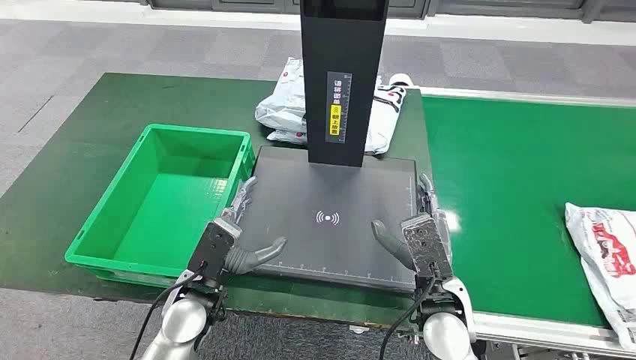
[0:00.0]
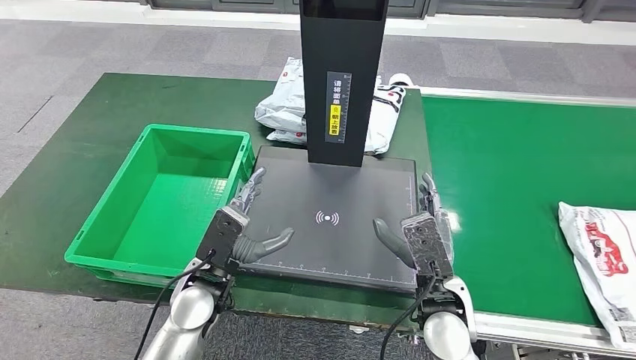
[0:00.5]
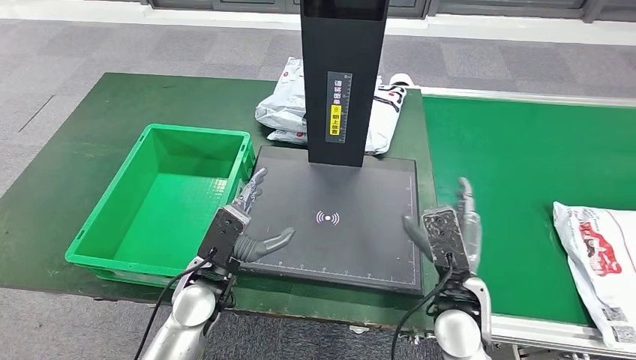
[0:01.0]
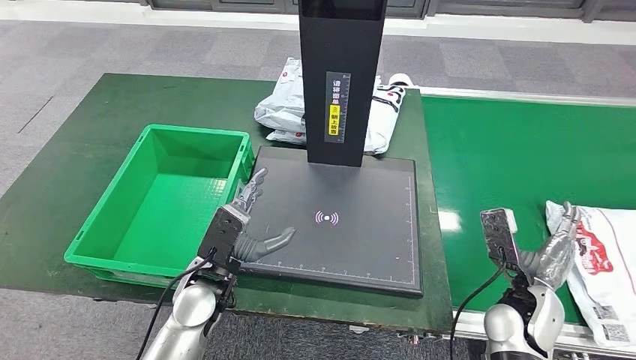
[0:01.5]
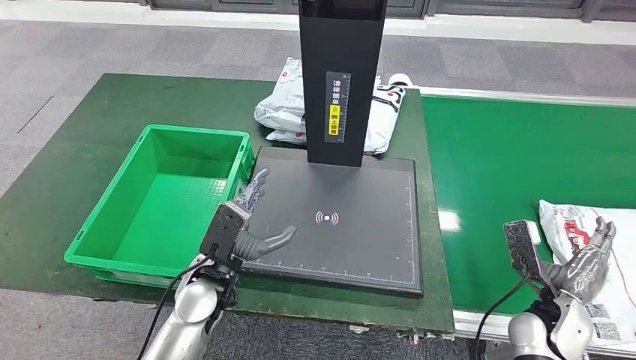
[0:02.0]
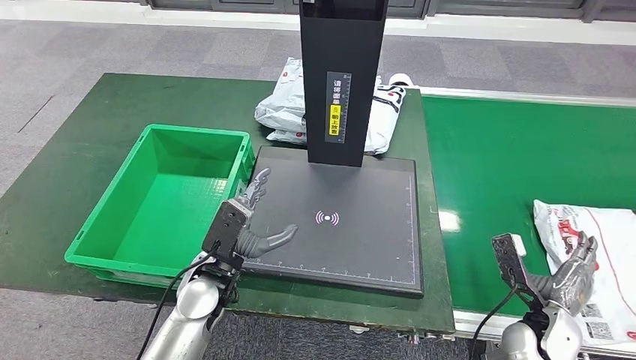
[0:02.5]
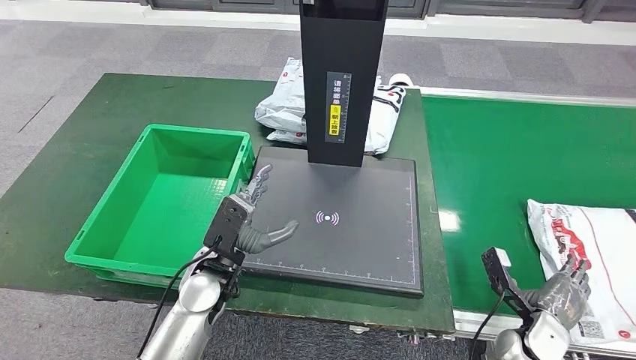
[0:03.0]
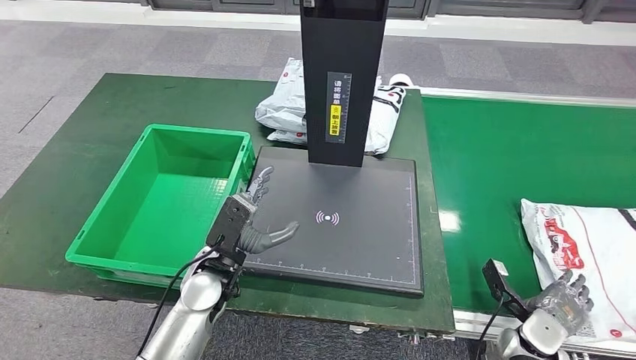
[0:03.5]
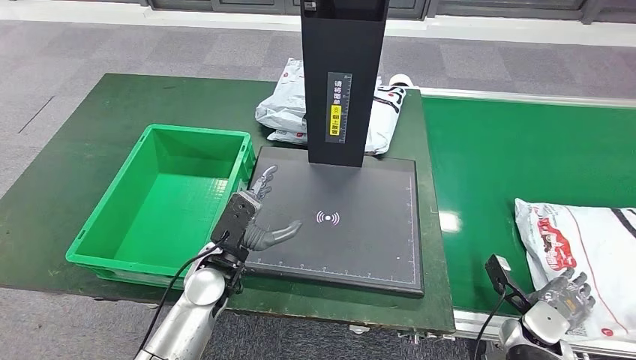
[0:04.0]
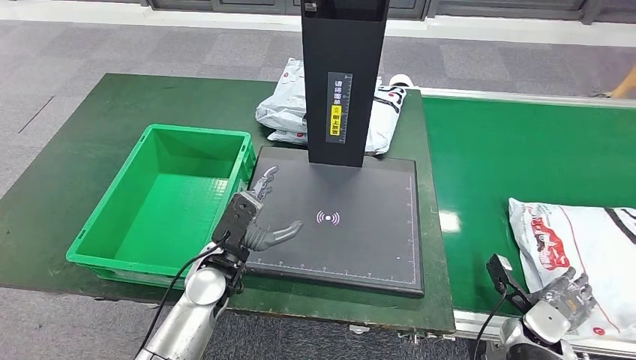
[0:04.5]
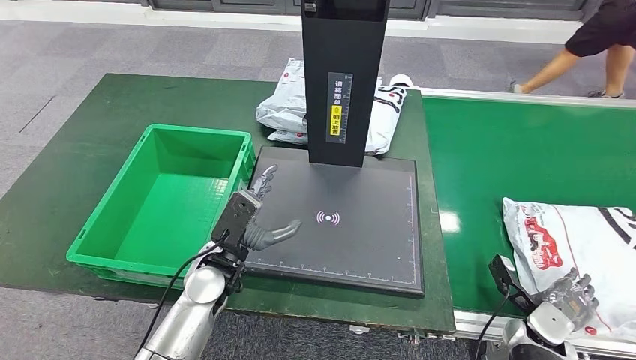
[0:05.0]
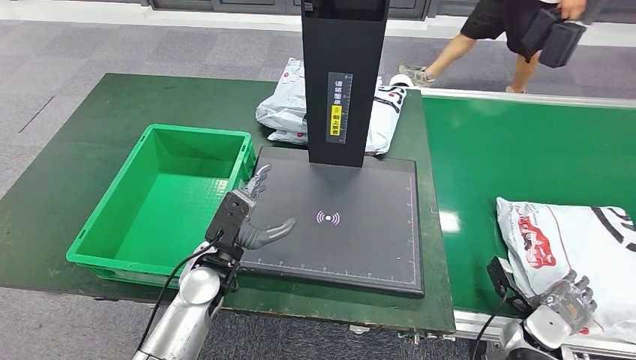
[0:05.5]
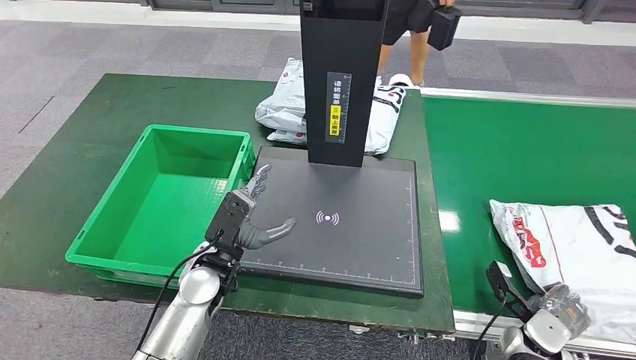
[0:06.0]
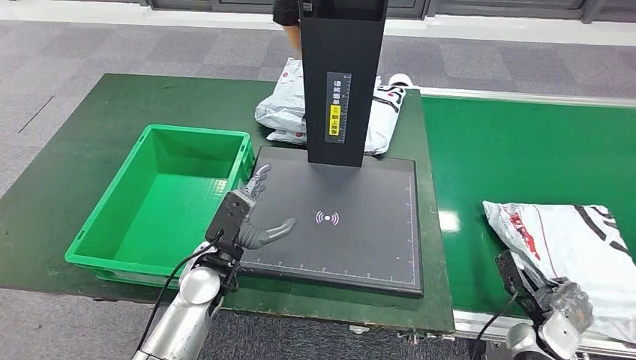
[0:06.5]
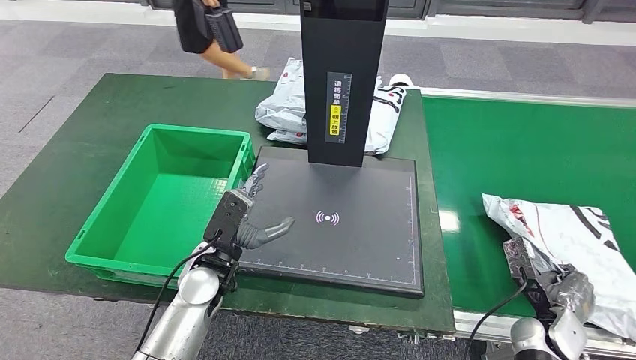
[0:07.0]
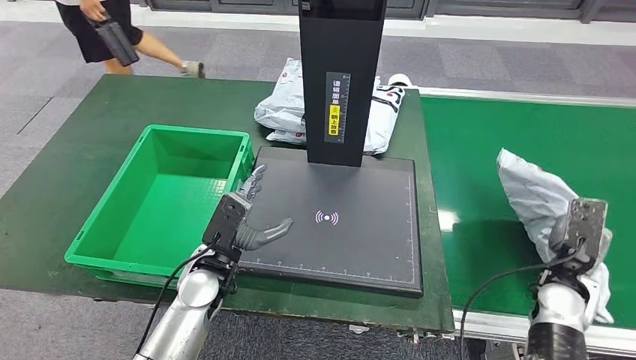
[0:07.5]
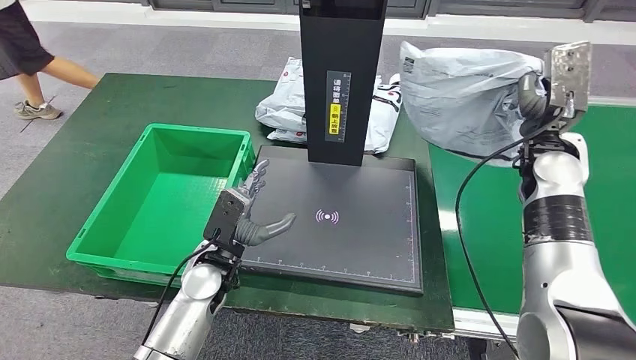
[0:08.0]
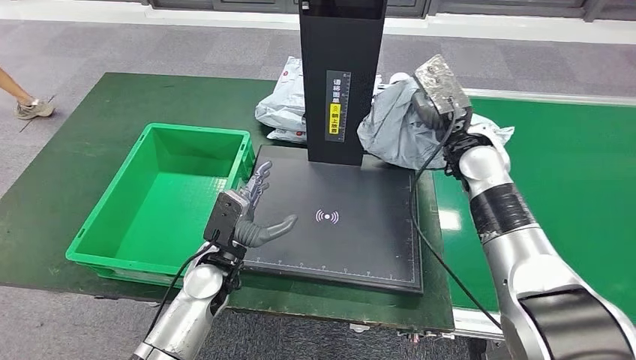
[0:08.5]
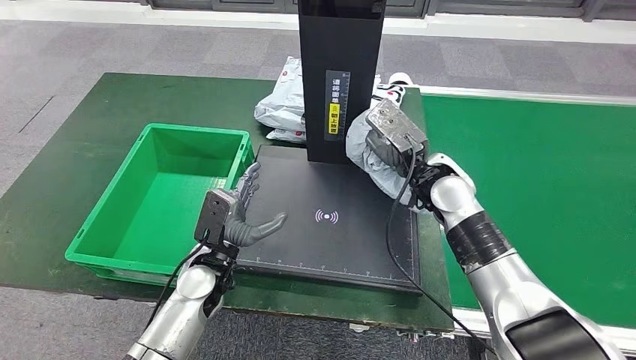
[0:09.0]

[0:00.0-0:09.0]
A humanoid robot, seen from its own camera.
Step, 0:00.0 to 0:08.0: Take the parcel off the conveyor belt.
0:02.0 to 0:04.5: The right hand goes roughly 5 cm downward.

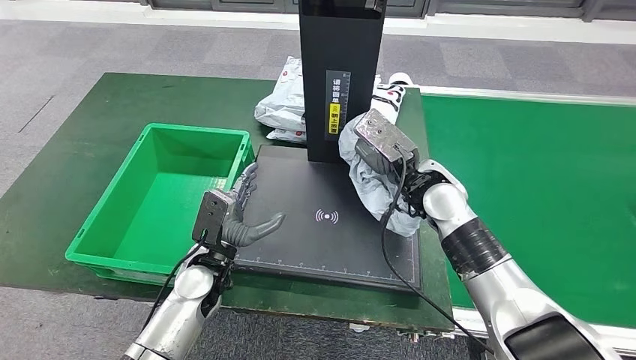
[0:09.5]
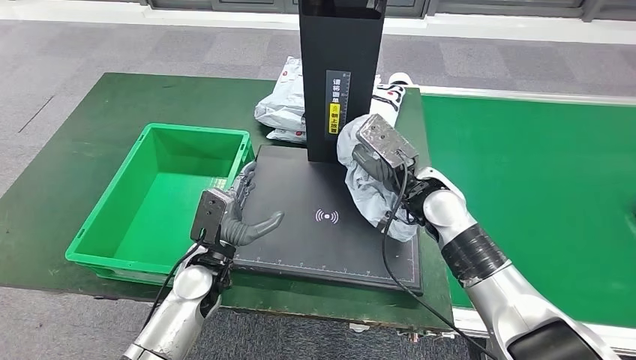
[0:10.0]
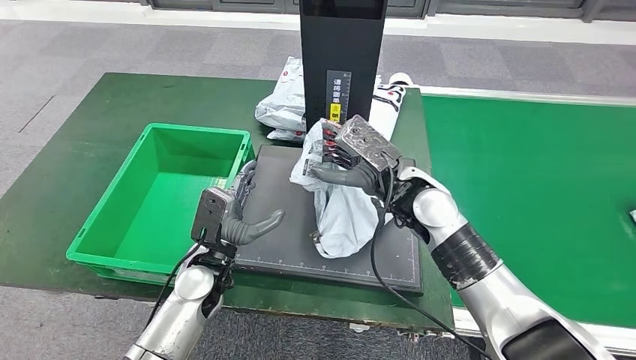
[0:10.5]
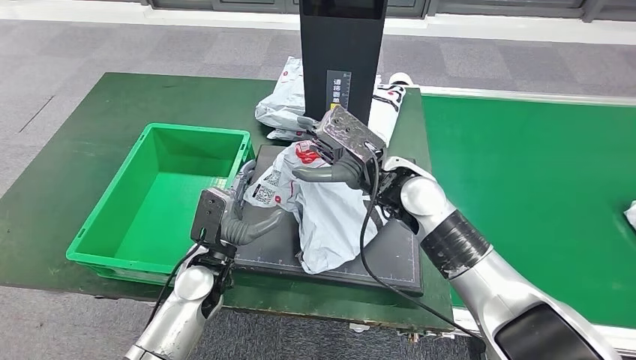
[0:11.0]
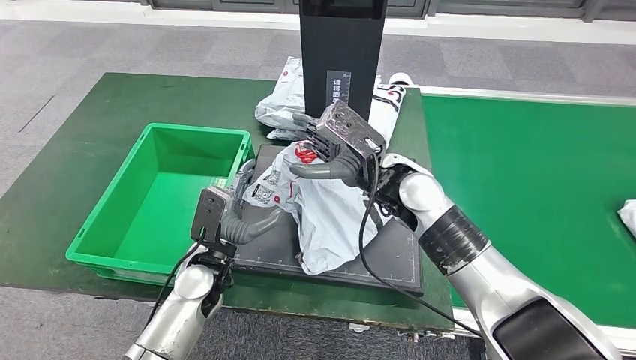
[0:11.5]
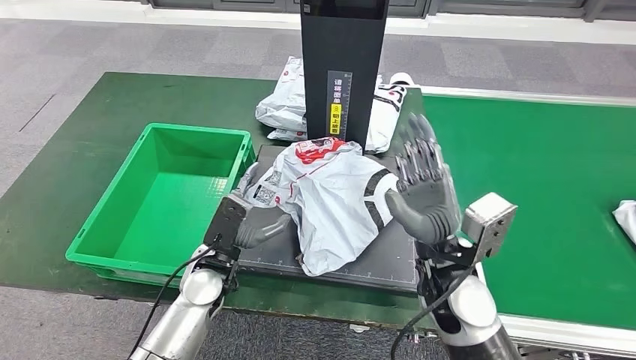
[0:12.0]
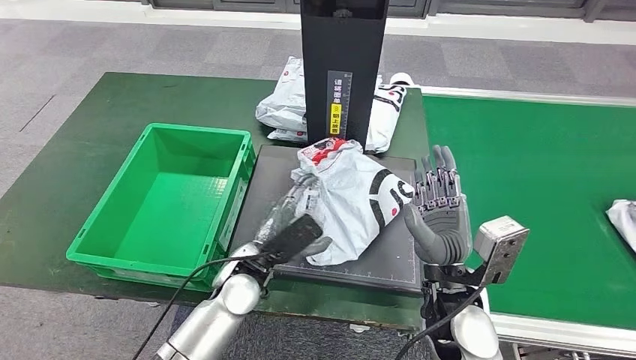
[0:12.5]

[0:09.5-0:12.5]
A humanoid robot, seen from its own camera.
Step, 0:09.5 to 0:12.5: Place the parcel onto the inbound machine.
0:09.5 to 0:11.0: The right hand travels to the left by approximately 5 cm.

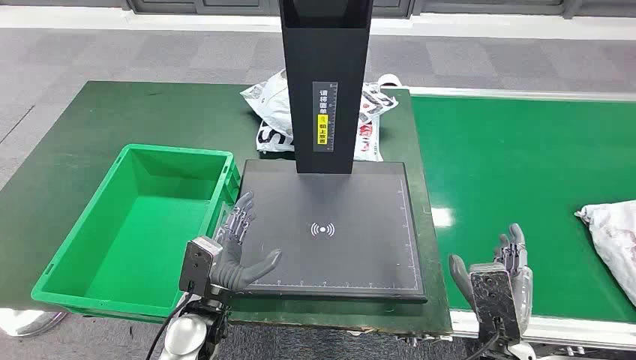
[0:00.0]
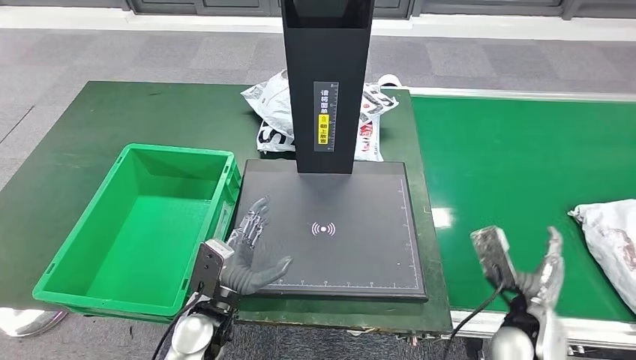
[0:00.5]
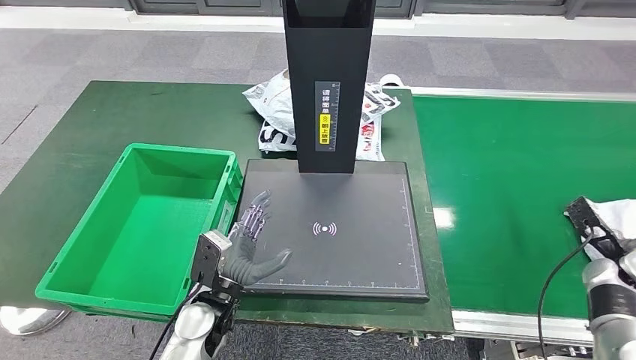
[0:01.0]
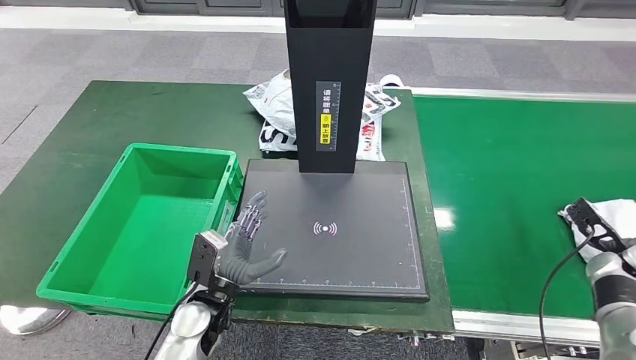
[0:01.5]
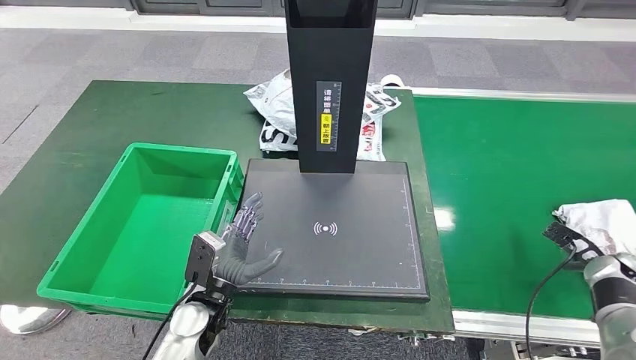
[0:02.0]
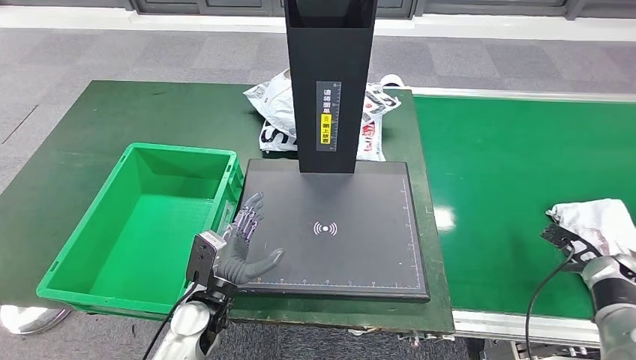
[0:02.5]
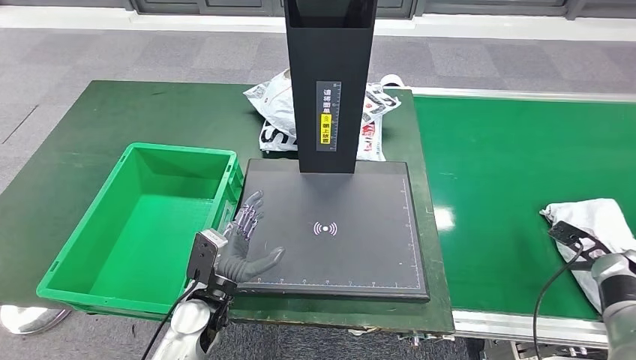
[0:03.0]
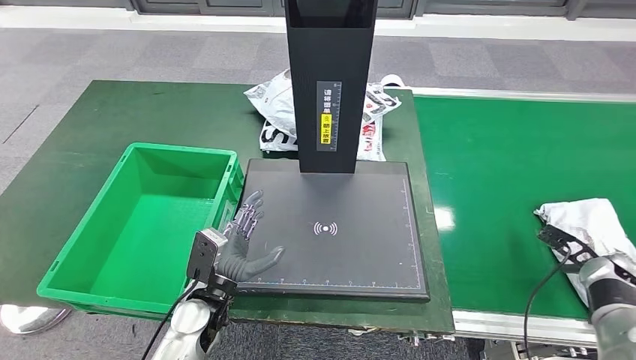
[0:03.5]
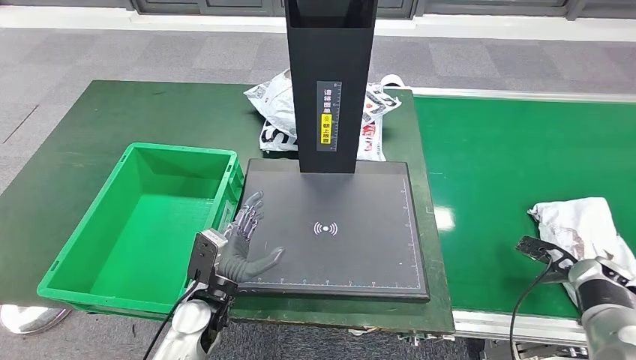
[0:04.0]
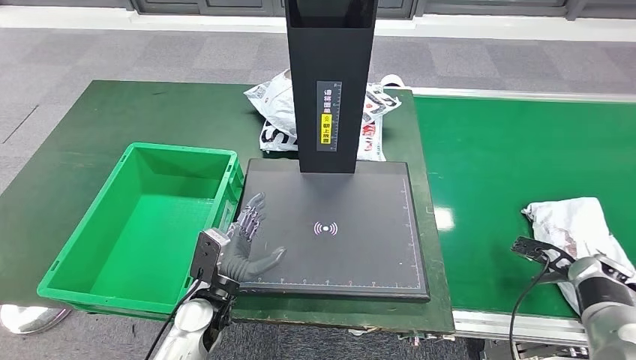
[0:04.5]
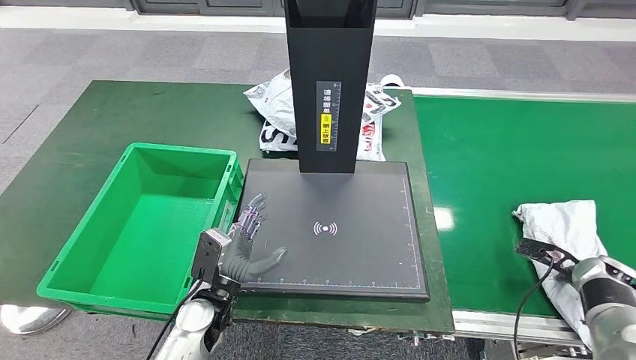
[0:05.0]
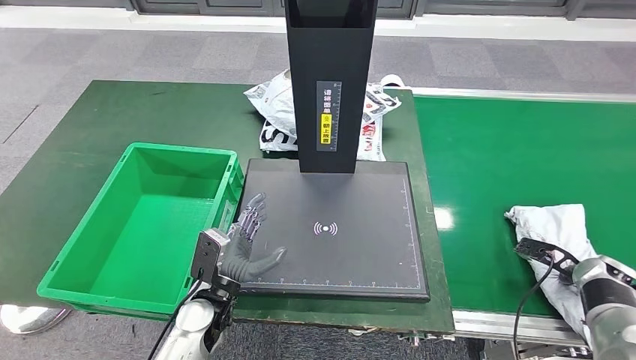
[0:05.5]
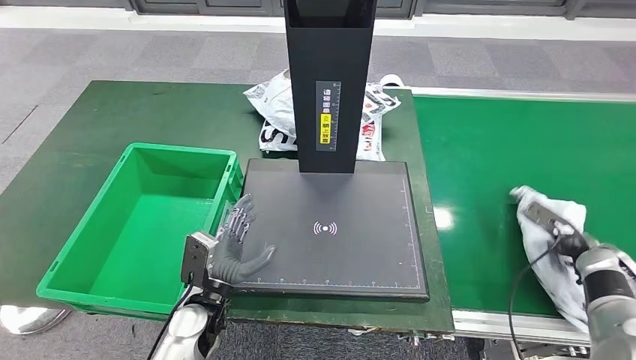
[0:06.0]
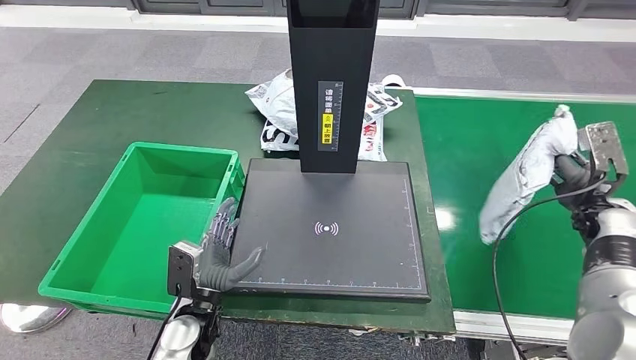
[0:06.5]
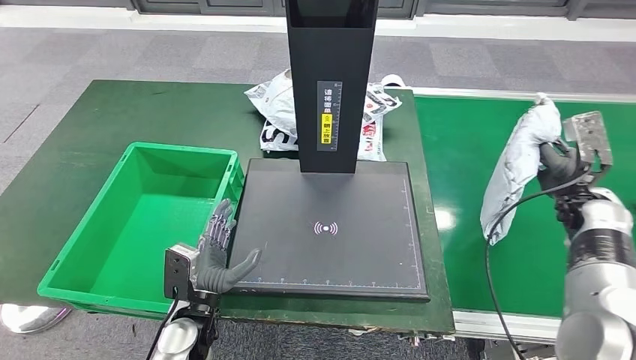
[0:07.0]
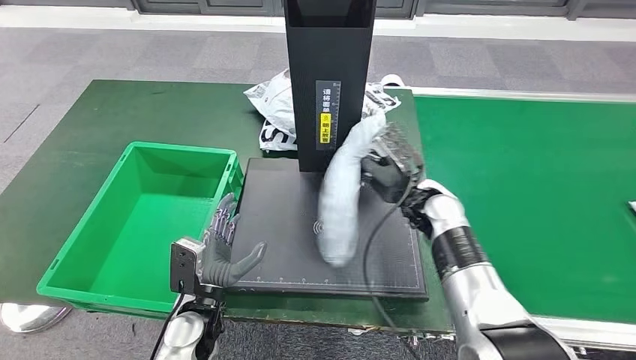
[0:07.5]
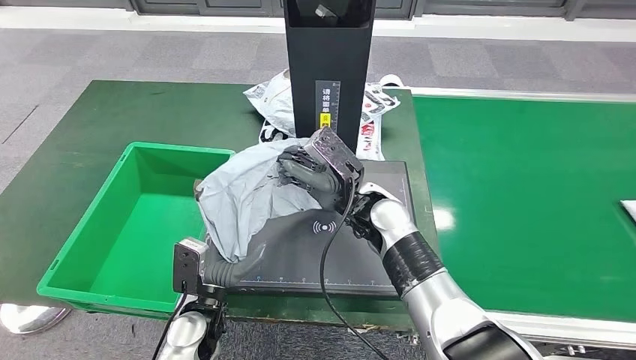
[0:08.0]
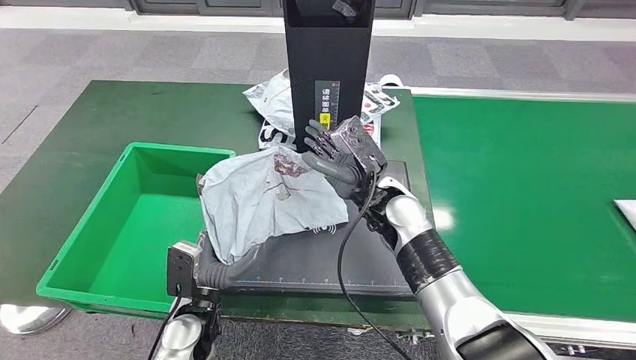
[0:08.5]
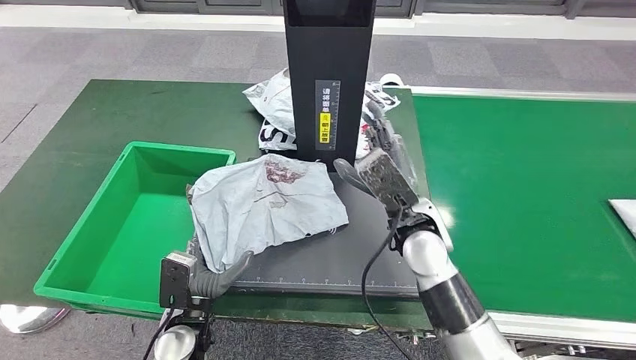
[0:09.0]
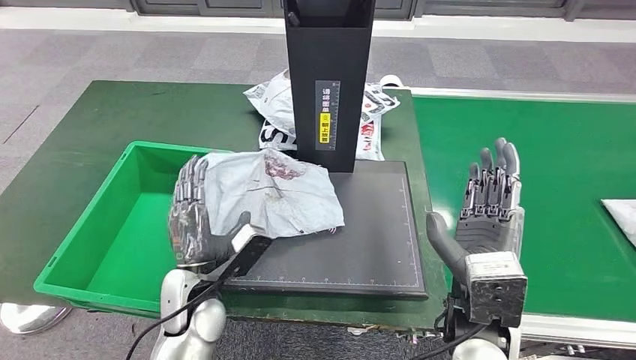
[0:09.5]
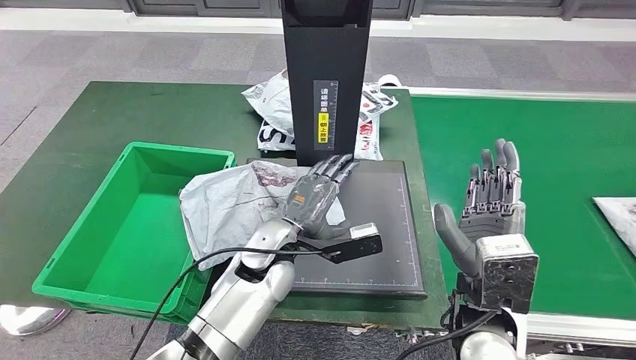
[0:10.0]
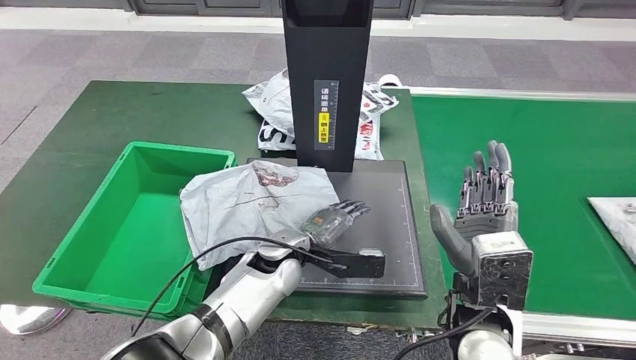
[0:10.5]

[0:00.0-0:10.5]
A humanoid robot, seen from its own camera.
Step, 0:00.0 to 0:06.5: Take the parcel off the conveyor belt.
0:02.0 to 0:04.0: The hands stay close to where they were, moving slightly.
0:04.0 to 0:06.5: The right hand travels upward and forward by some 10 cm.
